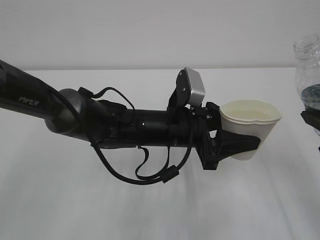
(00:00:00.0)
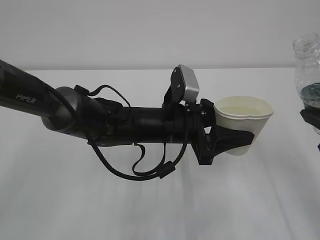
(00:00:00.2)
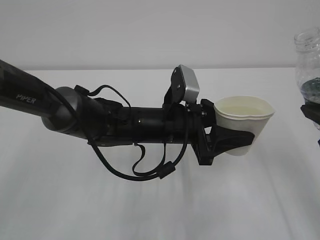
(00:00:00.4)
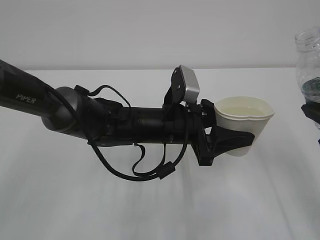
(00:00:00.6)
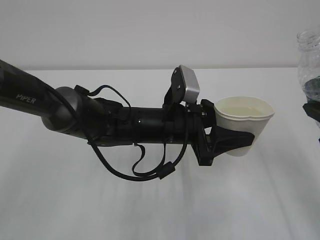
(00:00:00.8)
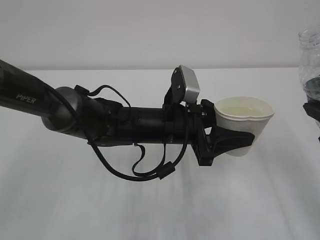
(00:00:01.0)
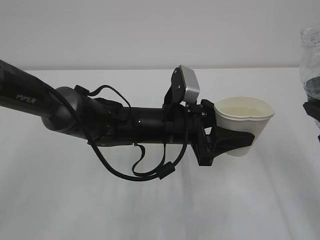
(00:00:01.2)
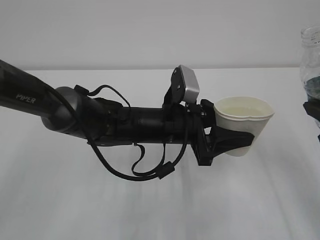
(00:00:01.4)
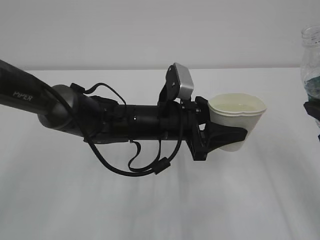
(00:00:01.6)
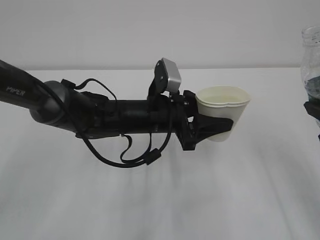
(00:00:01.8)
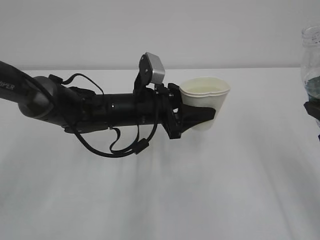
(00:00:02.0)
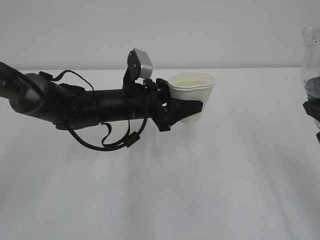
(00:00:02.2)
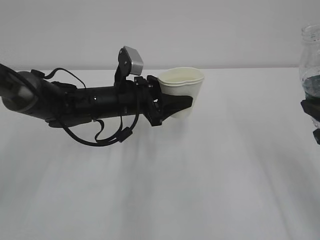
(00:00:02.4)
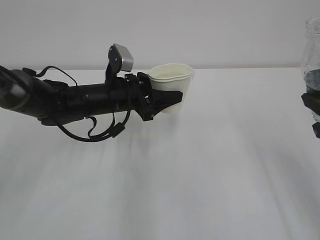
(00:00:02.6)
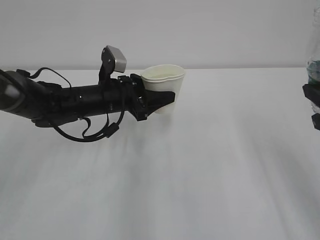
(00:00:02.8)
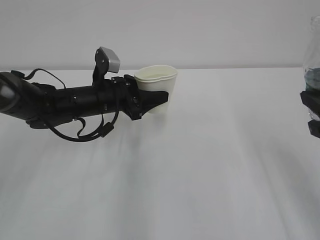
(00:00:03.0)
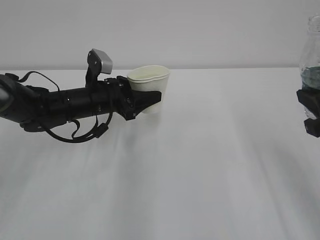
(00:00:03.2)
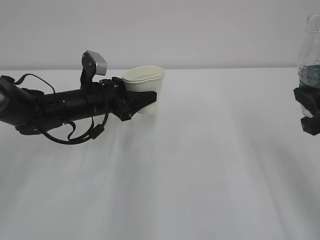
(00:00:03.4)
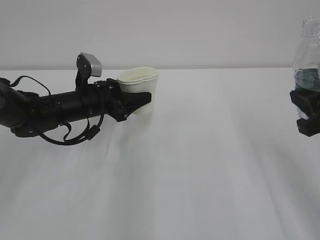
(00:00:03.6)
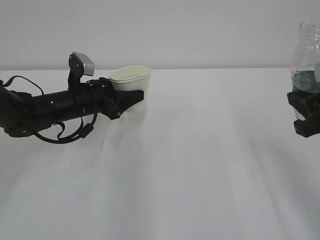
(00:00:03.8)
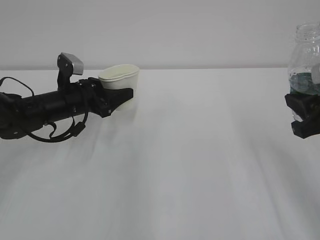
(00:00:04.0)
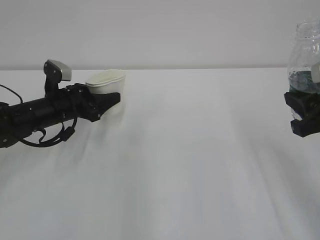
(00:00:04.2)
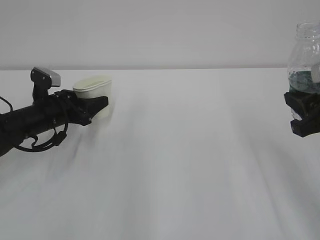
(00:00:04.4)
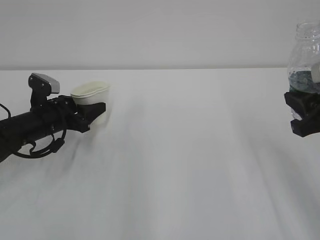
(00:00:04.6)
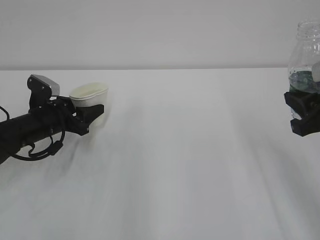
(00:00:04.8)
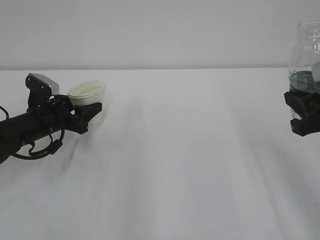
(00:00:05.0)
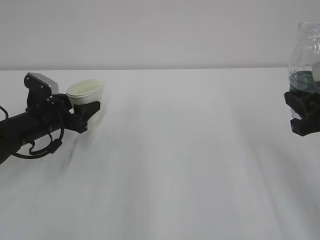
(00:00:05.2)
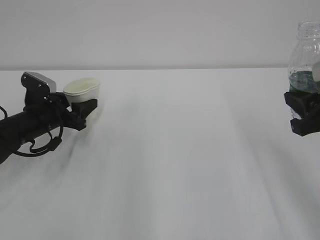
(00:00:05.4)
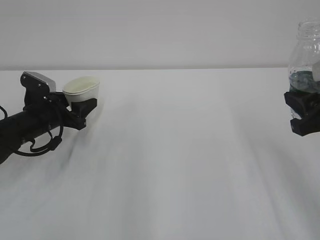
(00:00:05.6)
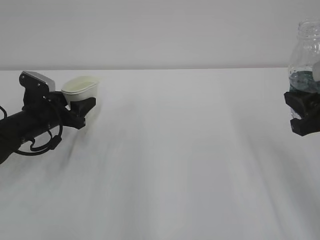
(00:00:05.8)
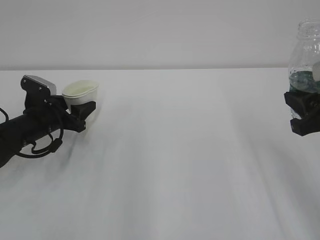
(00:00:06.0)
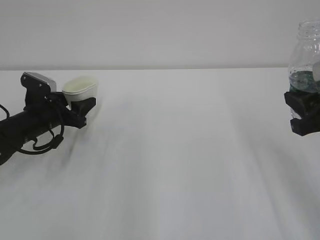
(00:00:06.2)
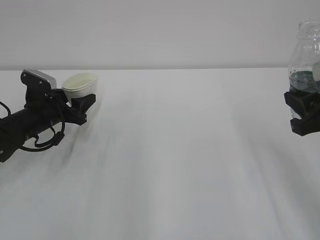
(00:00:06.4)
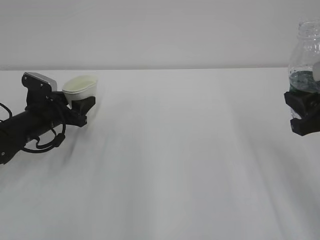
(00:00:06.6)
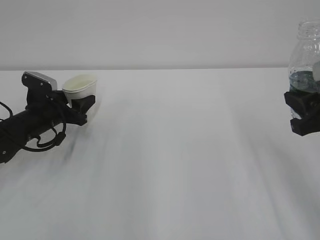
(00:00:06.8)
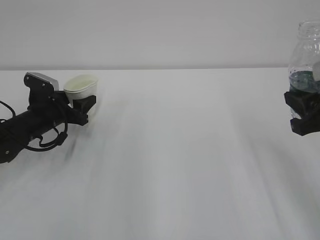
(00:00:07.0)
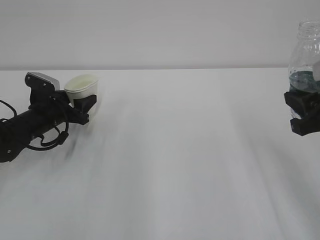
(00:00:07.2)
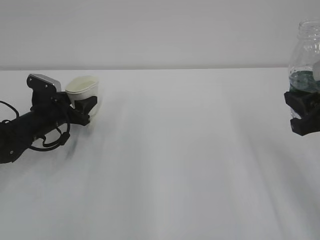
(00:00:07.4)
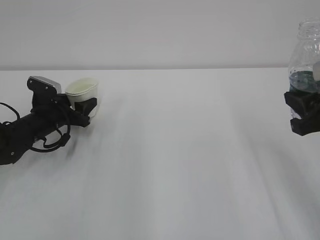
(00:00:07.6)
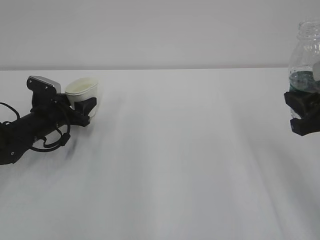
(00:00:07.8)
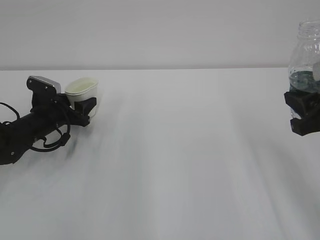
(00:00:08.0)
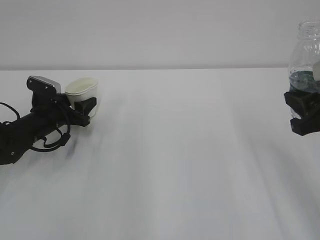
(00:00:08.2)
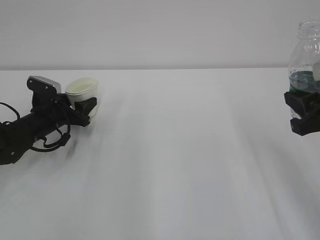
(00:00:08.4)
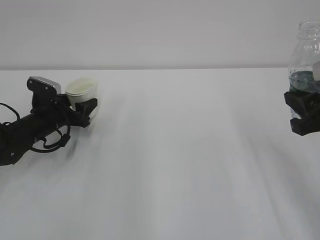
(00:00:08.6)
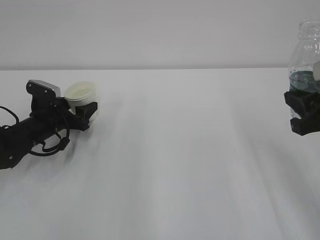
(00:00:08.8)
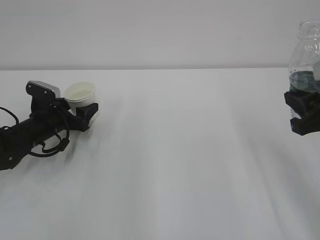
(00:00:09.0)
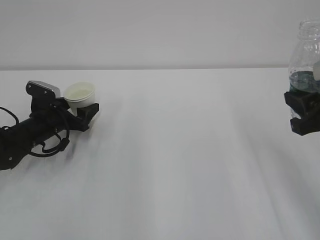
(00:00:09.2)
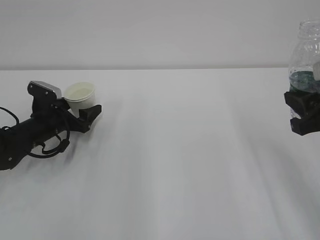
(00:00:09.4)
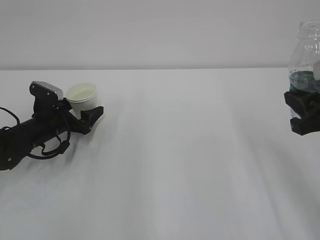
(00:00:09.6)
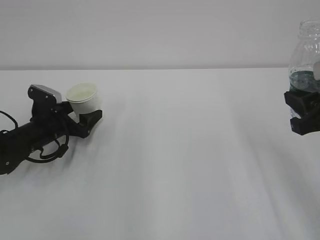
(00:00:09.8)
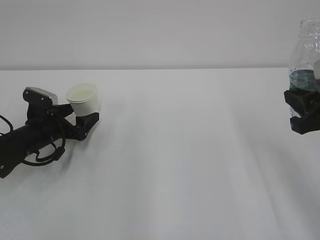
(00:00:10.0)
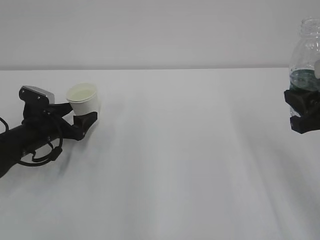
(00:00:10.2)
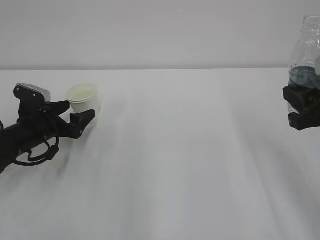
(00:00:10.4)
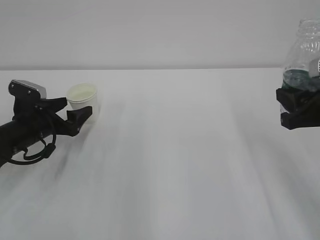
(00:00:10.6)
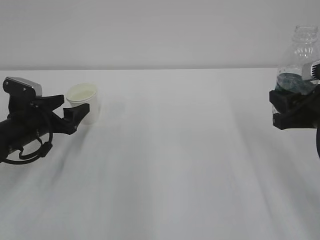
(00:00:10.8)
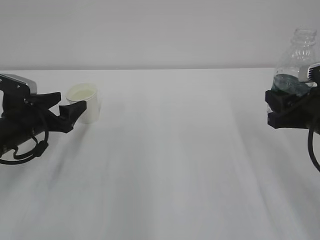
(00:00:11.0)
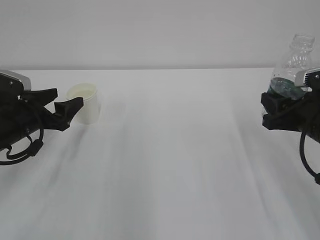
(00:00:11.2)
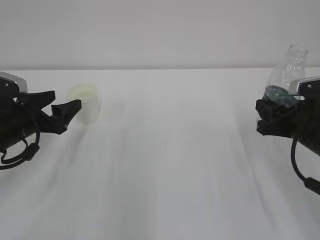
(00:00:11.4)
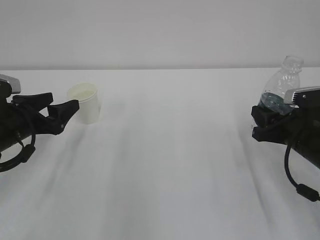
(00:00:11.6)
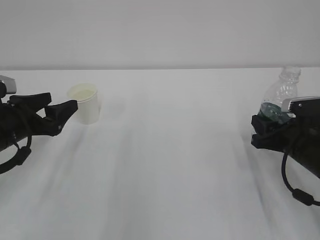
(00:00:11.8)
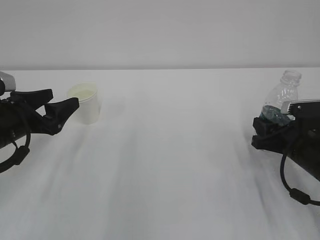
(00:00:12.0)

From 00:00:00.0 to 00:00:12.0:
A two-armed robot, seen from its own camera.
From 00:00:00.0 to 00:00:01.6: The grippers make only small movements.
From 00:00:01.6 to 00:00:03.0: The left gripper travels to the left and forward by approximately 15 cm.
From 00:00:03.0 to 00:00:04.4: The left gripper travels to the left by approximately 10 cm.
From 00:00:04.4 to 00:00:07.6: The grippers stay close to where they were, moving slightly.
From 00:00:07.6 to 00:00:09.0: Both grippers stay about where they are.
From 00:00:09.0 to 00:00:10.4: The grippers stay close to where they were, moving slightly.
From 00:00:10.4 to 00:00:12.0: The left gripper heads upward and backward, covering approximately 10 cm. Meanwhile the right gripper moves downward, some 15 cm.

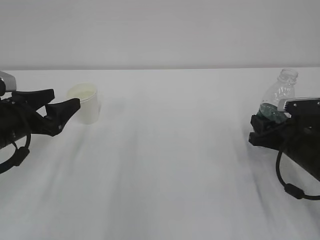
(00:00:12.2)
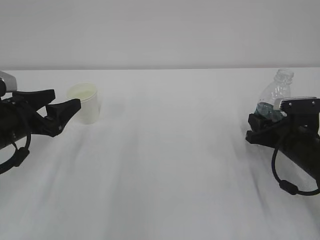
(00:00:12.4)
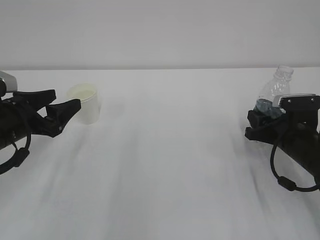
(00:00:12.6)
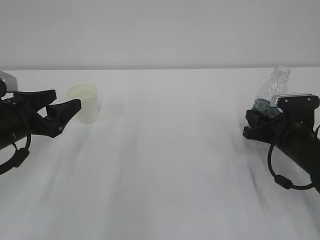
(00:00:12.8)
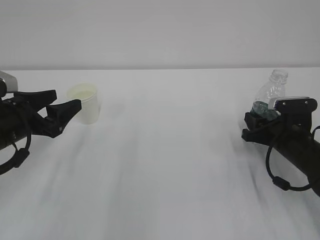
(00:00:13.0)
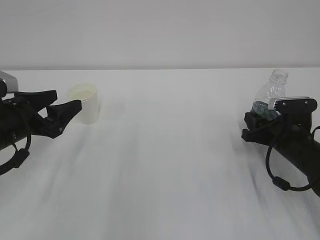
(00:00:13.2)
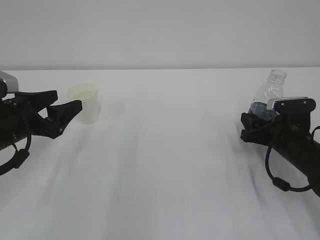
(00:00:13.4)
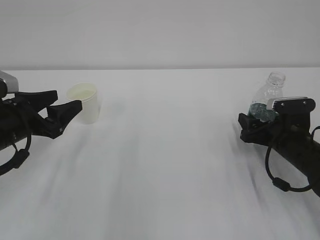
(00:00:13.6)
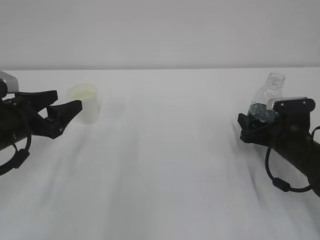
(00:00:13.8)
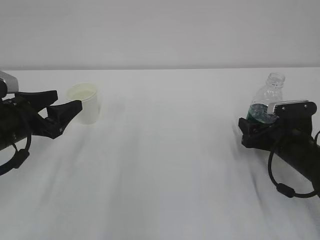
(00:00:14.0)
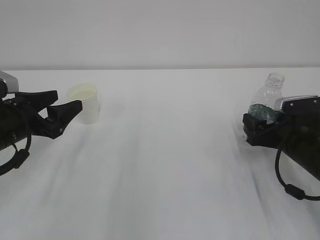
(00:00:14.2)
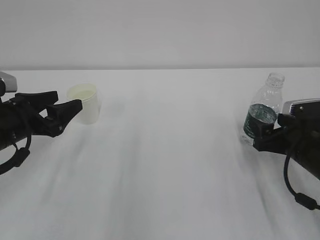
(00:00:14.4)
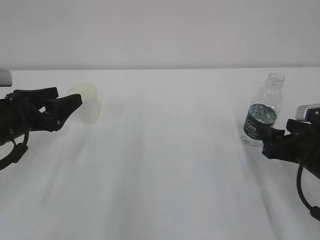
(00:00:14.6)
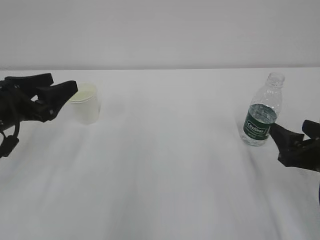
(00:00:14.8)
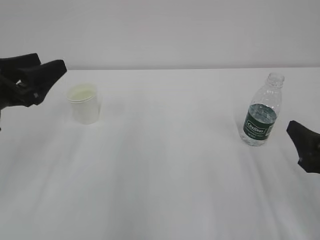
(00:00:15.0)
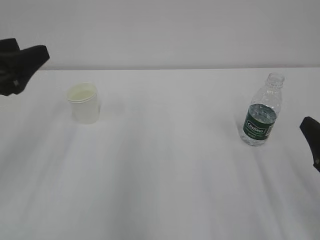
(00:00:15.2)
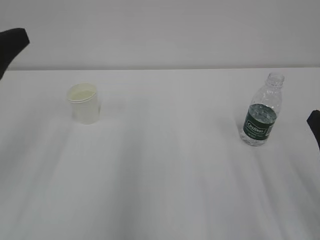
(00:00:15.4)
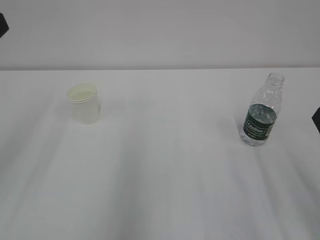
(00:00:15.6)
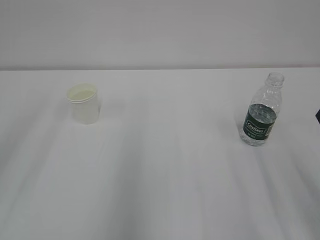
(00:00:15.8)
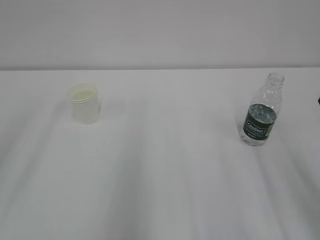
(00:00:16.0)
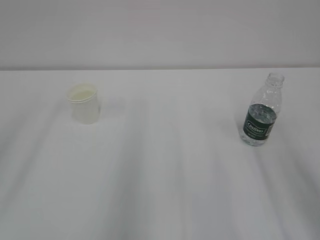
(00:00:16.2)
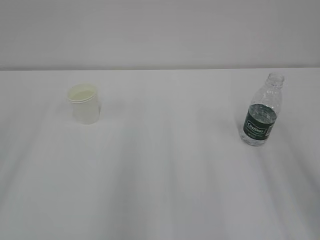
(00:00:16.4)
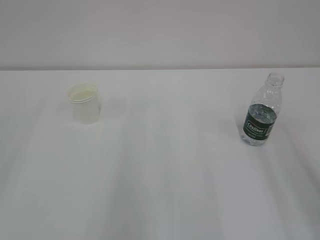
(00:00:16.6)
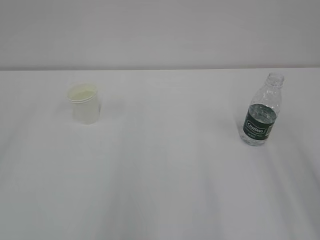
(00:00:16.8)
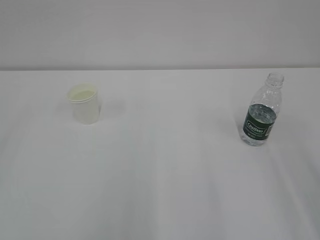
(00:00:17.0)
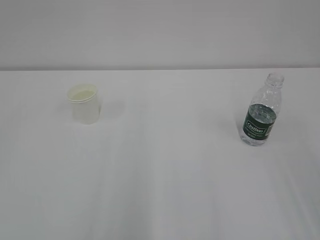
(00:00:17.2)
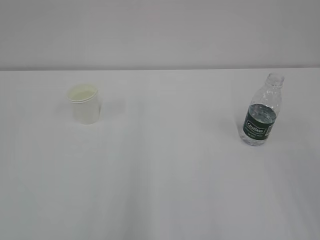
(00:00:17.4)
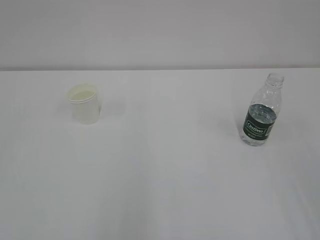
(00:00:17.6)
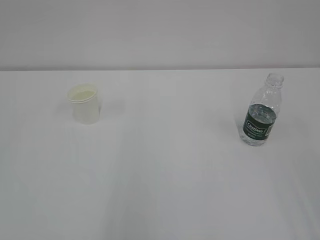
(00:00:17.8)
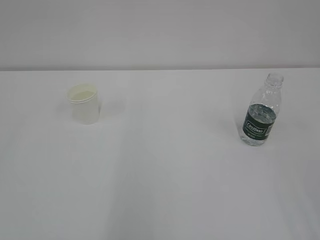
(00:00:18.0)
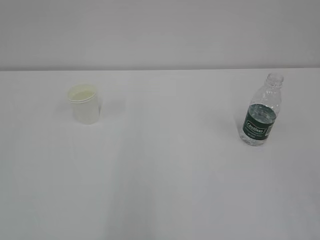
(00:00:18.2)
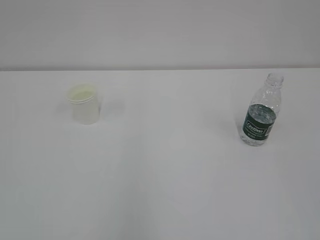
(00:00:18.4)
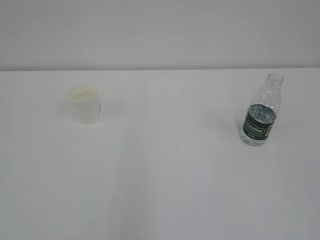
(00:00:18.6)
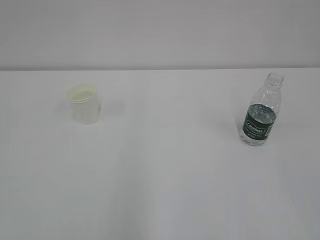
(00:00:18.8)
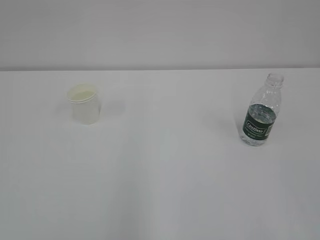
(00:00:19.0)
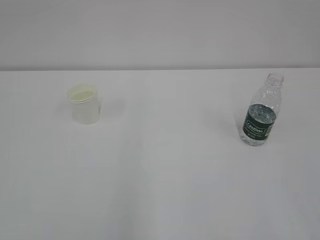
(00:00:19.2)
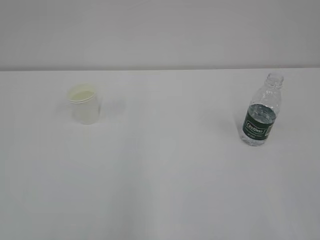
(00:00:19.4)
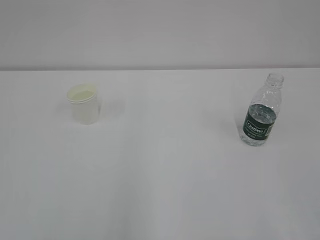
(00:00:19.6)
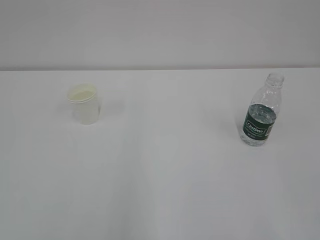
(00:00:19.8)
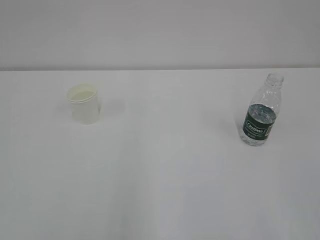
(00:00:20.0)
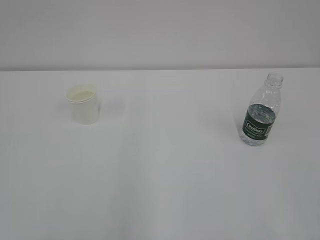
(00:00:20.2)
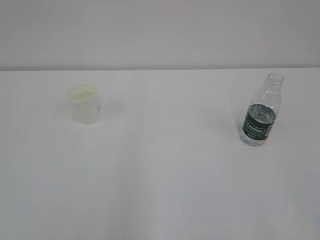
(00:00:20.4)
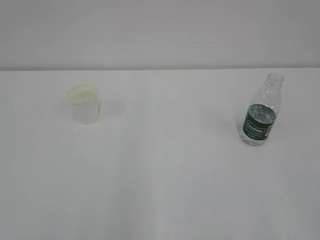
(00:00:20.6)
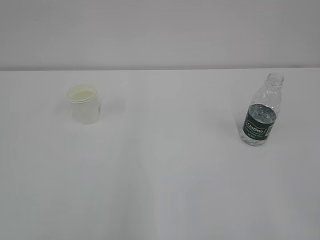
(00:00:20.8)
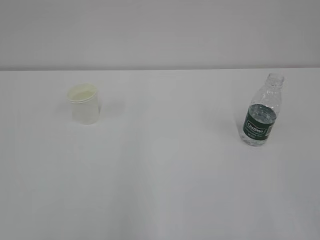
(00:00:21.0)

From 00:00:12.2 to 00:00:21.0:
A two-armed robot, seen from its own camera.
From 00:00:12.2 to 00:00:13.6: The right gripper opens its fingers.
From 00:00:13.6 to 00:00:15.2: The right gripper travels backward and upward by about 20 cm. Meanwhile the left gripper shifts some 10 cm upward and backward.
From 00:00:15.2 to 00:00:16.6: The left gripper goes approximately 15 cm backward and upward, while the right gripper goes approximately 10 cm upward.
